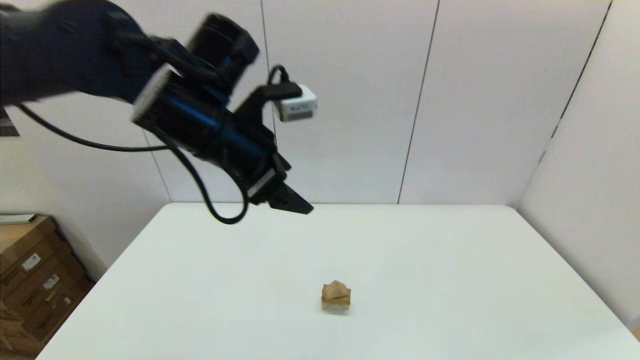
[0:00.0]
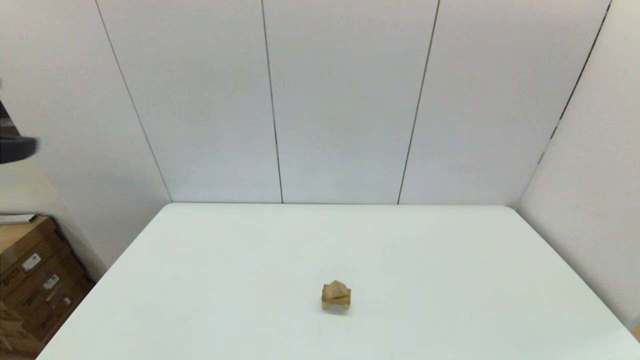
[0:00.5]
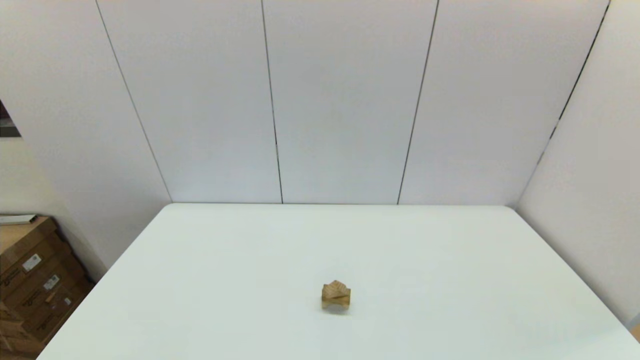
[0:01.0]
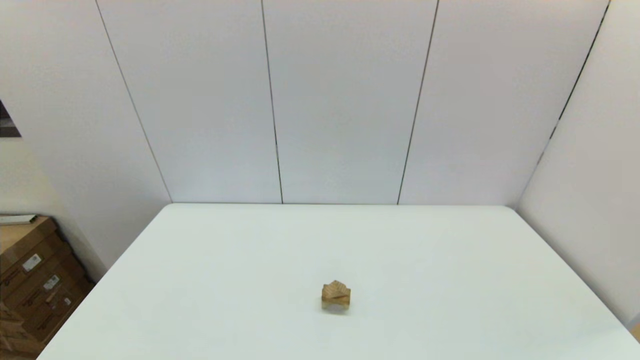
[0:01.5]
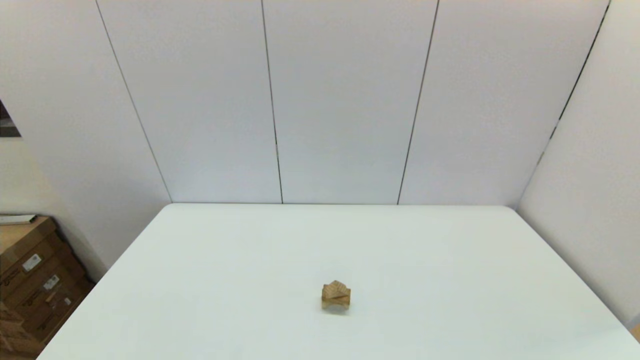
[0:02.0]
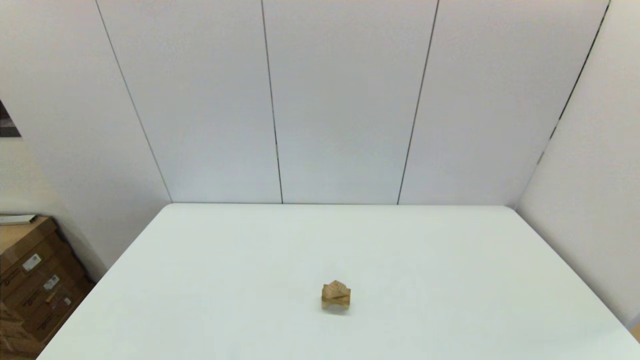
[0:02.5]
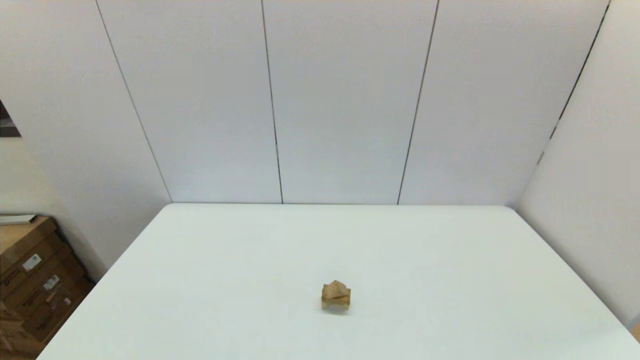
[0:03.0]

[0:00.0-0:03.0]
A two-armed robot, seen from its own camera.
Task of the whole recording: place the arched building blocks in the center of the table, set up the rectangular building blocks, and then set up the triangular building blocks.
0:00.0 to 0:01.5: The left gripper goes about 40 cm backward, to the left and downward.

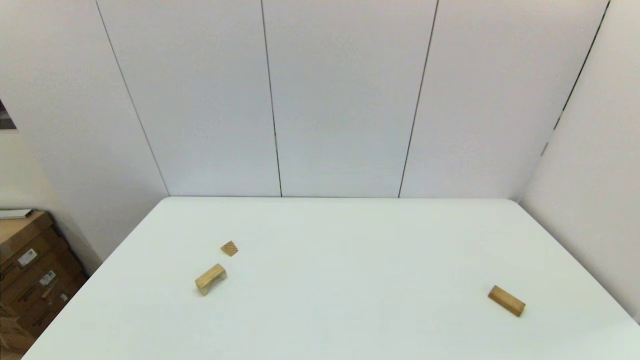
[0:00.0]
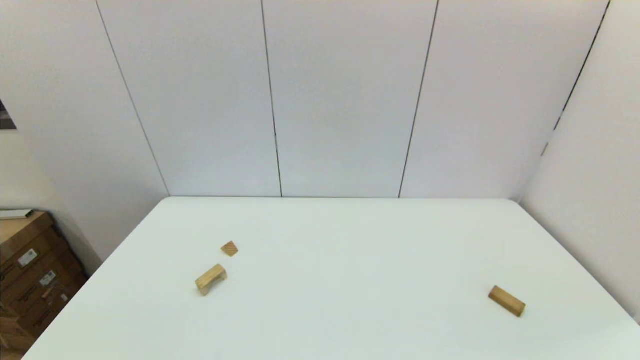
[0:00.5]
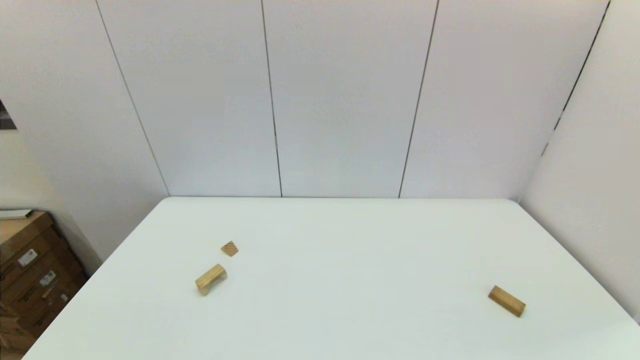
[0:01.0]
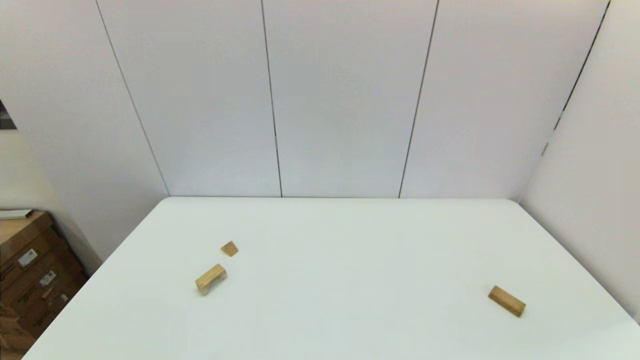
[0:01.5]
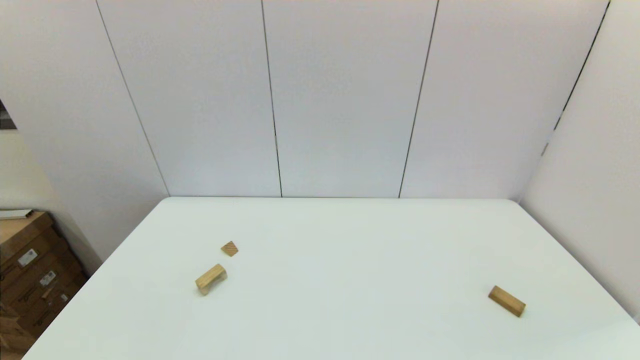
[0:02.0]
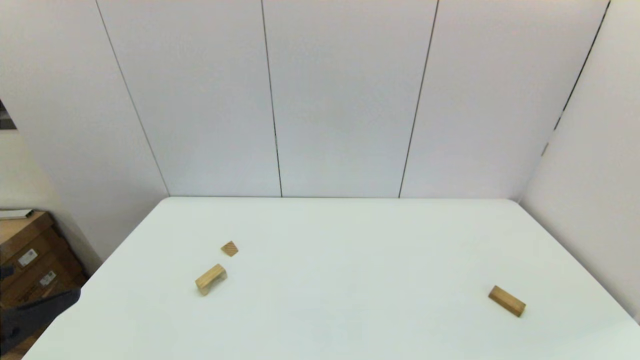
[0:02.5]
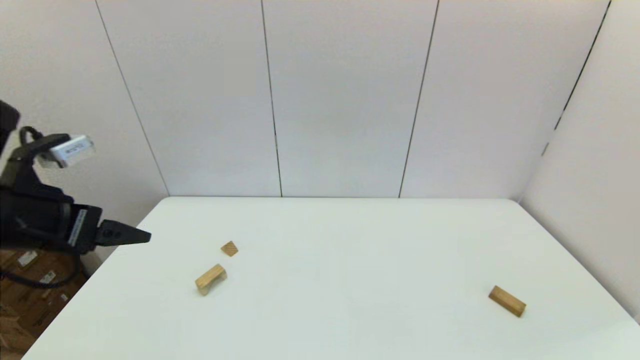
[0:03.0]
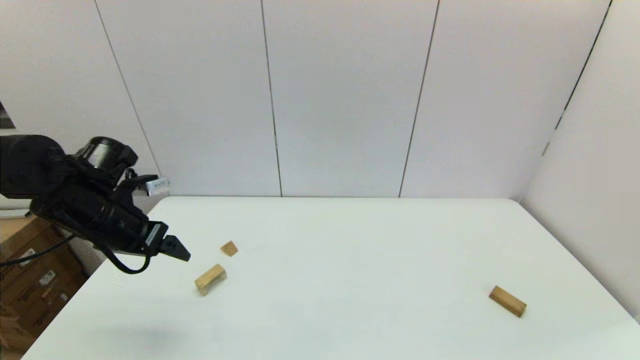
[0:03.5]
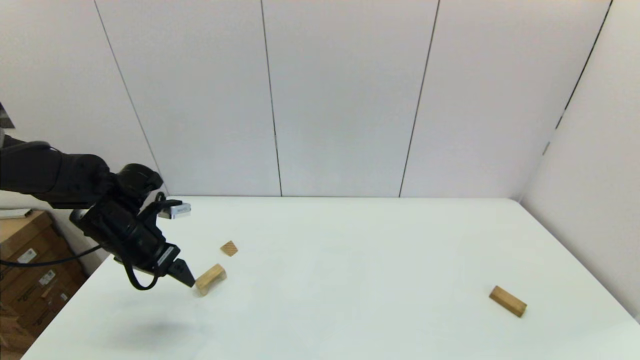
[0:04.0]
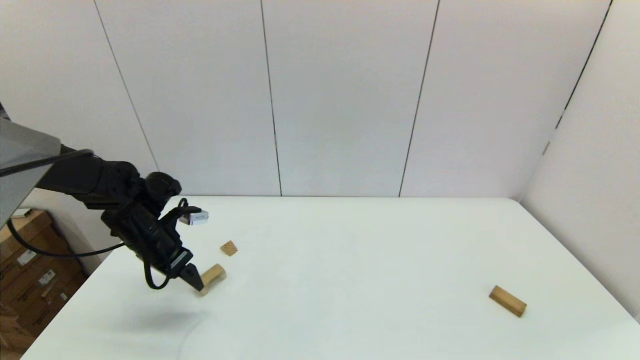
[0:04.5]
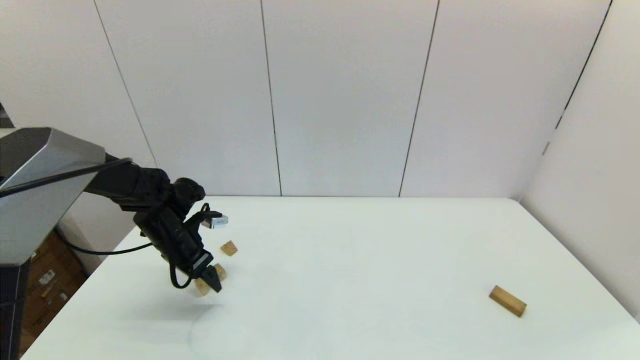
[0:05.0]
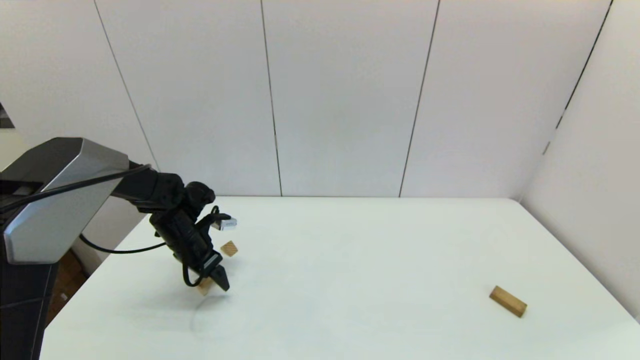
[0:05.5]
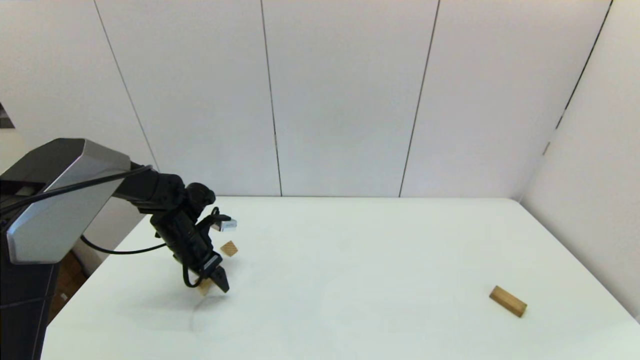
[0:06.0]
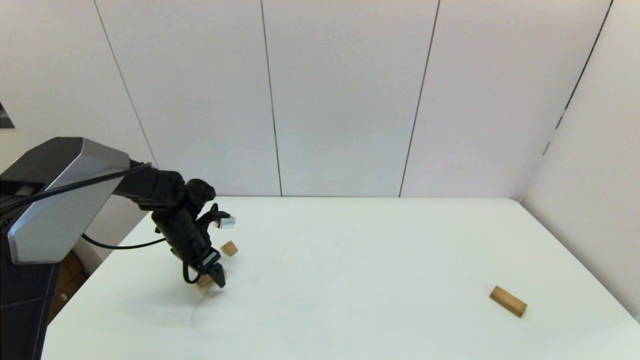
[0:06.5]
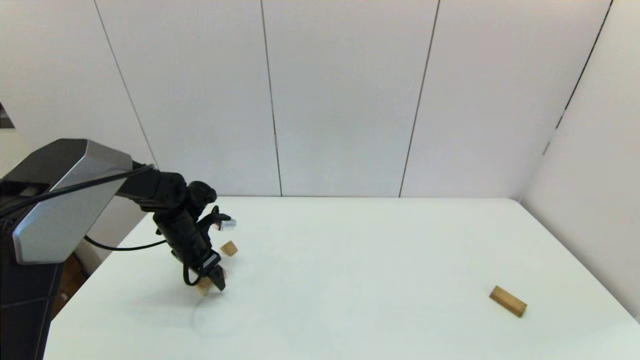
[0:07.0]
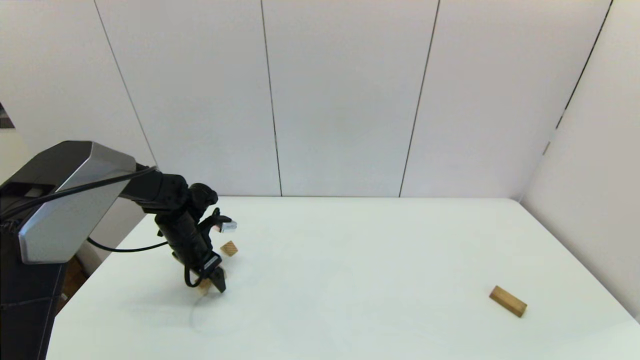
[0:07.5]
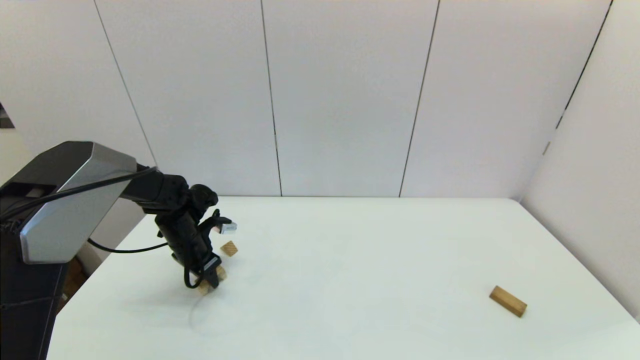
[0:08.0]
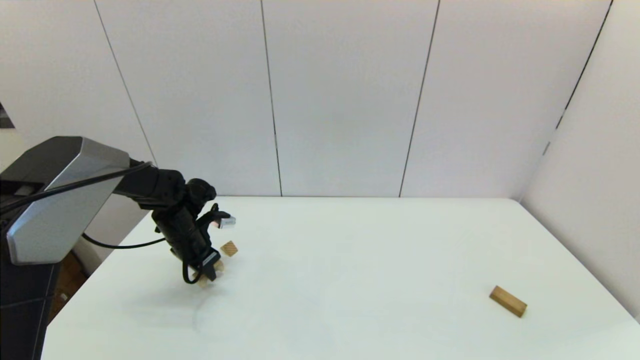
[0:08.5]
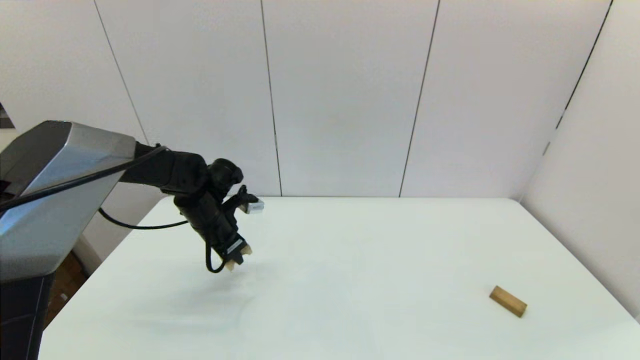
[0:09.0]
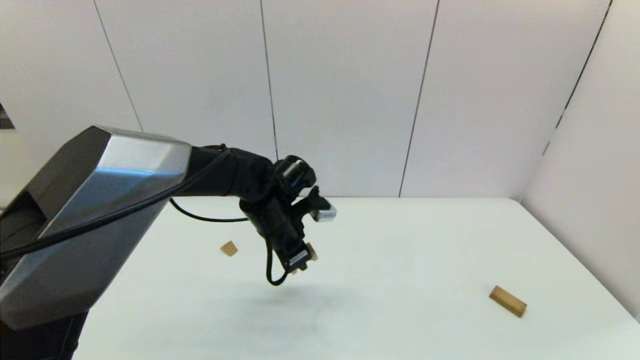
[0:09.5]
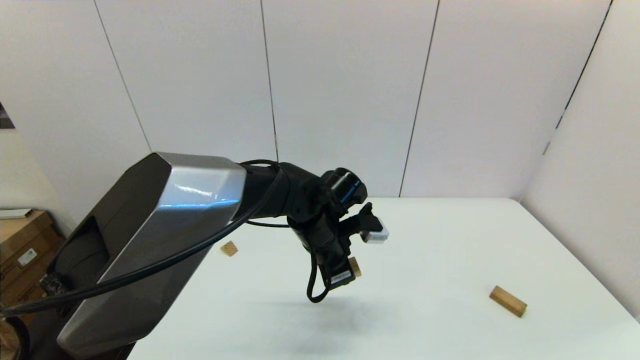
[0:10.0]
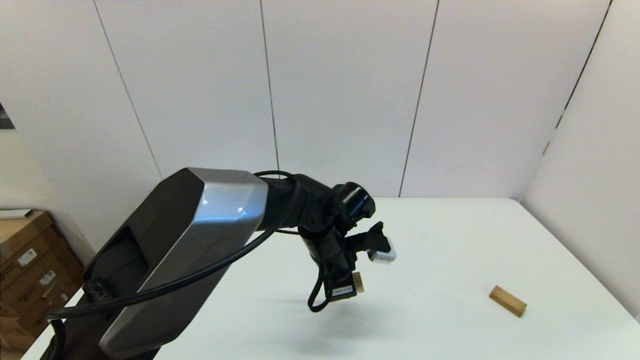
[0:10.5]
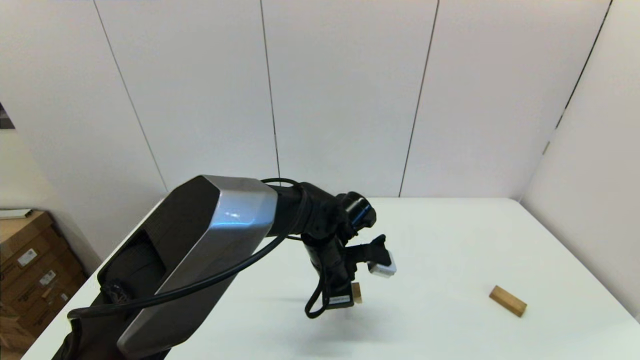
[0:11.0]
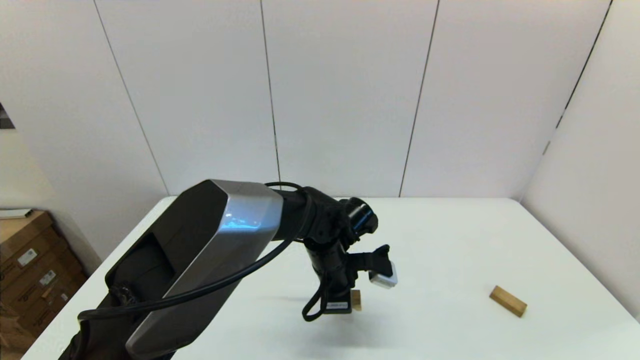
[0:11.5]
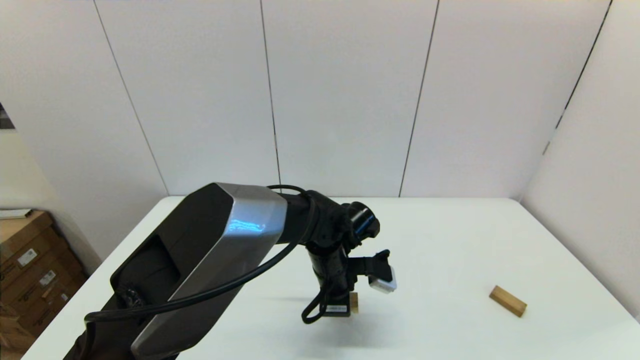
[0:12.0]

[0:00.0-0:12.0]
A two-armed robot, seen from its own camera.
Task of the whole recording: place the arched building blocks in the center of the table, set up the rectangular building blocks, and then set up the triangular building blocks.
Step, 0:02.5 to 0:08.0: Grasp the arch-shaped block with the left gripper.
0:02.0 to 0:04.0: The left gripper heads forward, covering some 35 cm.
0:04.0 to 0:06.0: The left gripper shifts about 10 cm downward and forward.
0:06.0 to 0:08.0: The left gripper closes its fingers.
0:08.0 to 0:10.0: The left gripper travels to the right by some 25 cm.
0:10.0 to 0:12.0: The left gripper is displaced downward by about 5 cm.

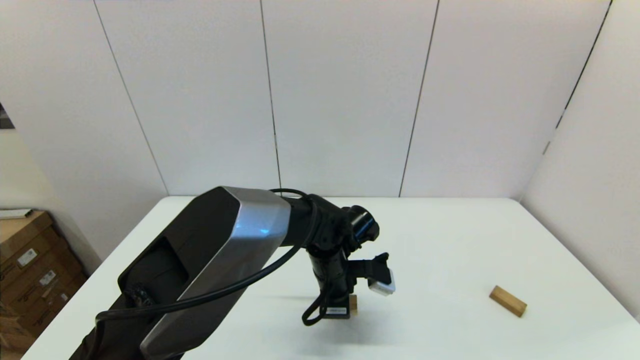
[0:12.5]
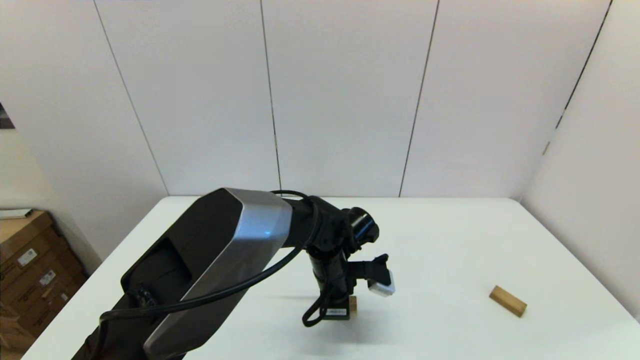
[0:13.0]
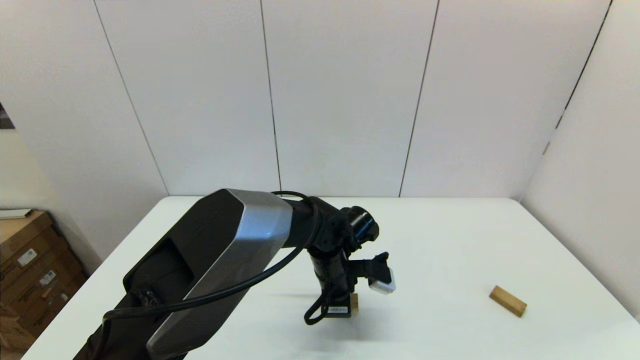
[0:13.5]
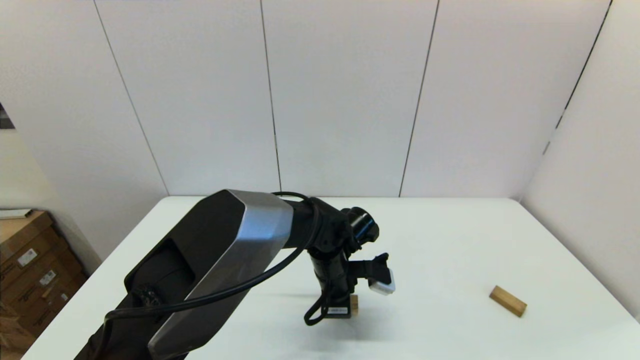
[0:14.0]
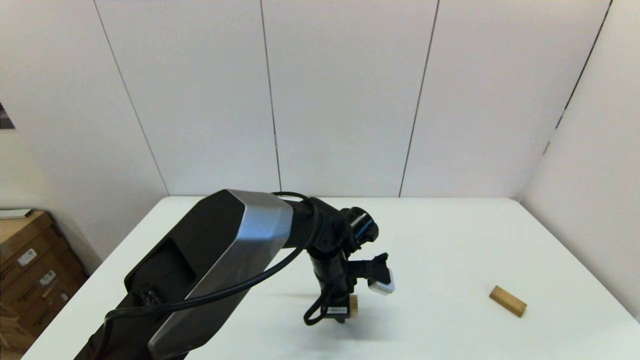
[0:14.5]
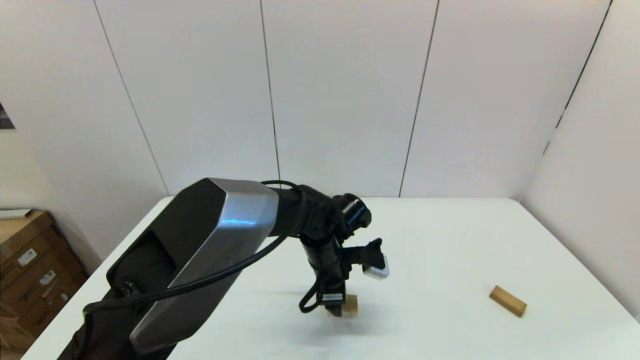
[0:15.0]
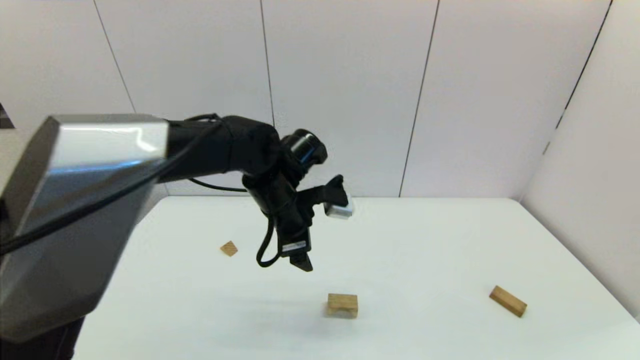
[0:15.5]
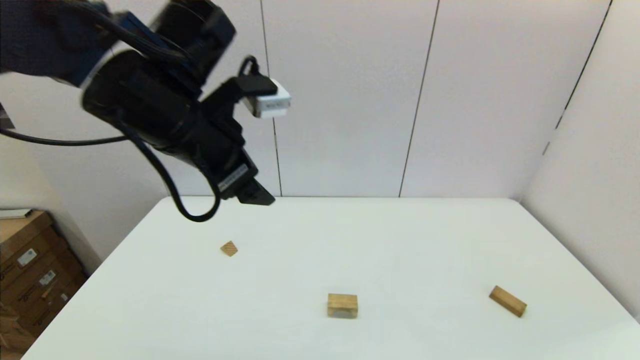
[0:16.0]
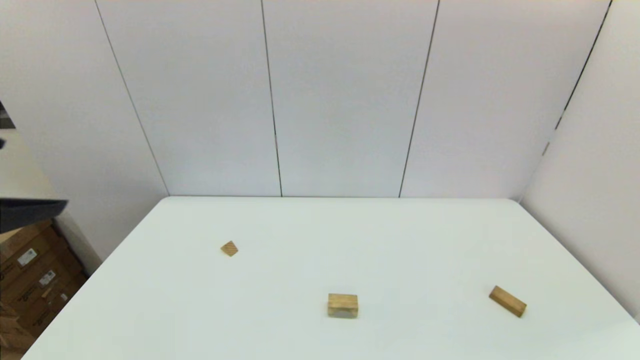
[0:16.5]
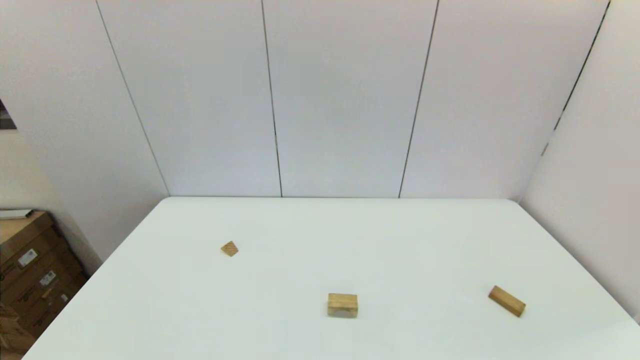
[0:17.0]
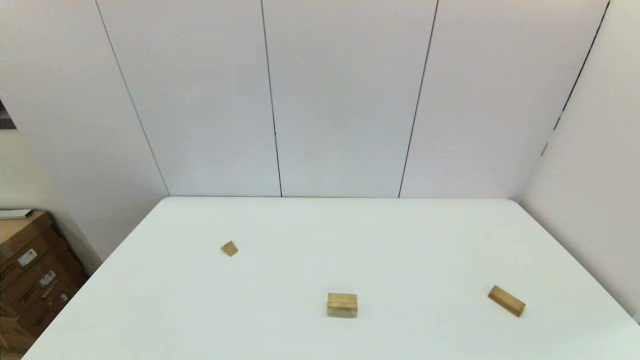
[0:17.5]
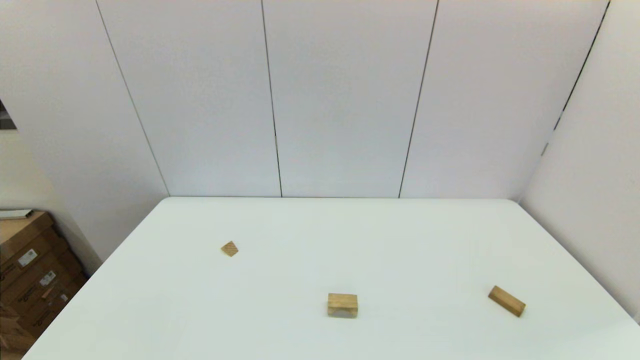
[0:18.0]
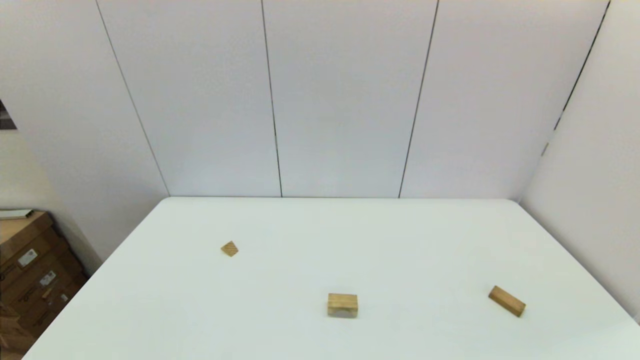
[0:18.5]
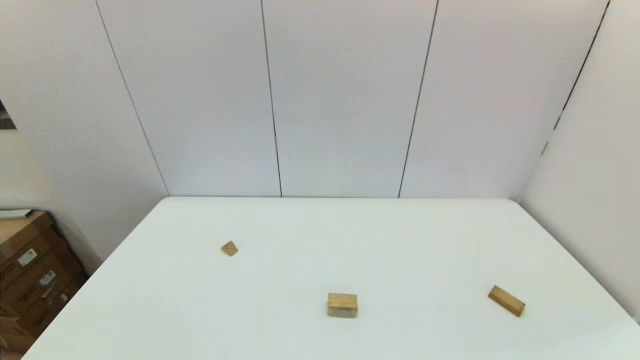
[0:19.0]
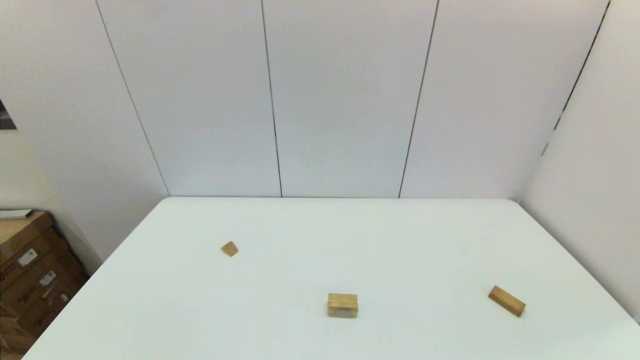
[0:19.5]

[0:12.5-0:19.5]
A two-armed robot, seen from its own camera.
Task of the whole recording: place the arched building blocks in the center of the table, set up the rectangular building blocks, and then set up the triangular building blocks.
Step, 0:12.5 to 0:14.5: Place the arch-shaped block in the center of view with the left gripper.
0:12.5 to 0:14.5: The left gripper opens up.
0:14.5 to 0:16.0: The left gripper shifts roughly 30 cm upward and to the left, and opens.
0:16.0 to 0:17.5: The left gripper goes approximately 40 cm backward and to the left.
